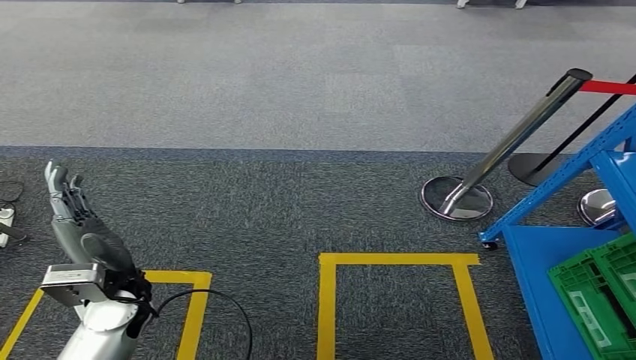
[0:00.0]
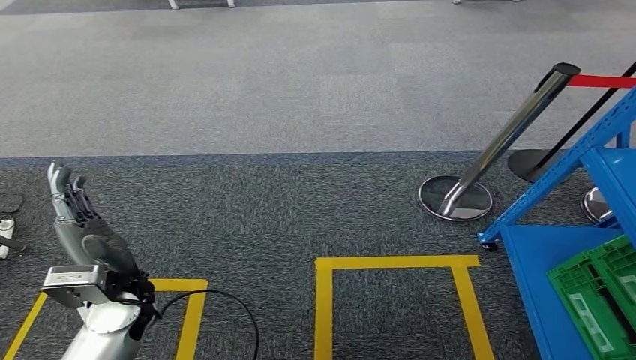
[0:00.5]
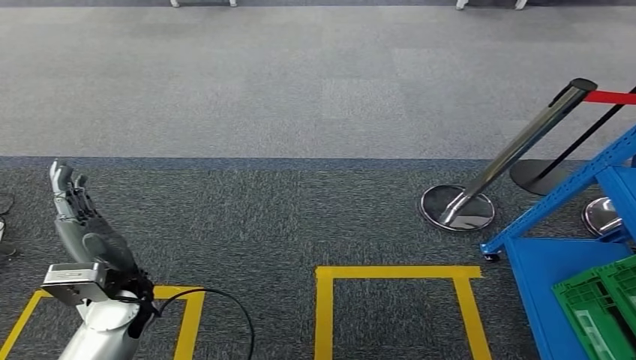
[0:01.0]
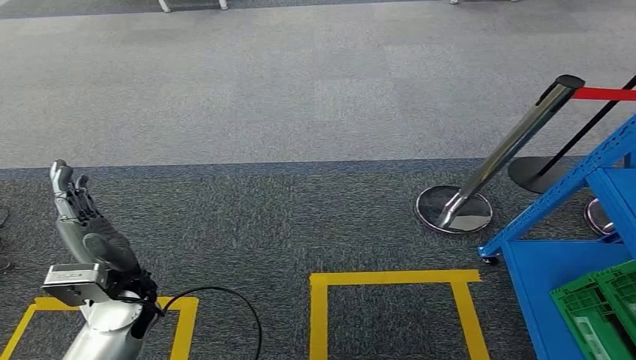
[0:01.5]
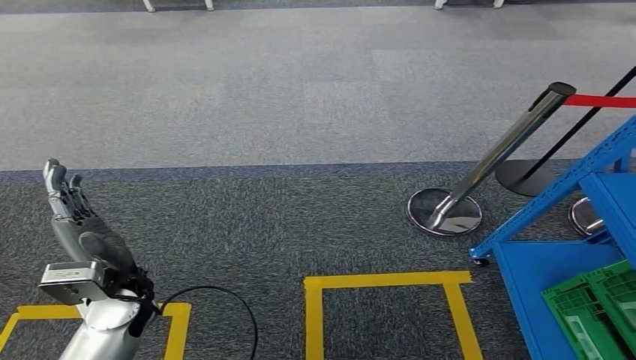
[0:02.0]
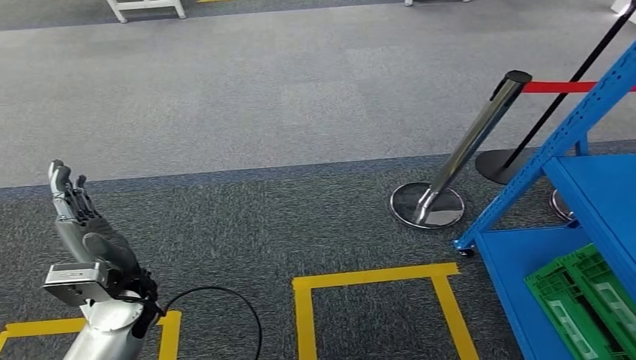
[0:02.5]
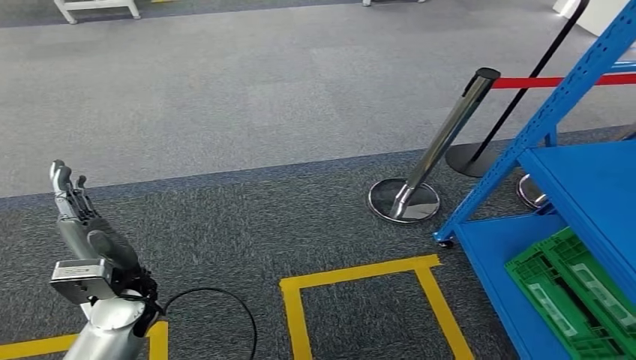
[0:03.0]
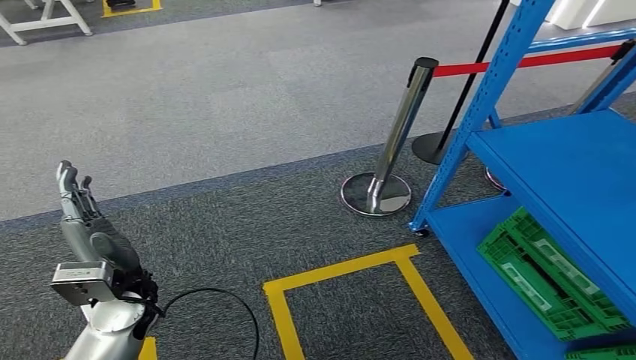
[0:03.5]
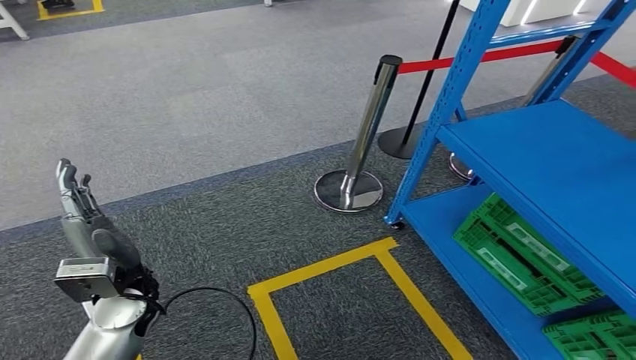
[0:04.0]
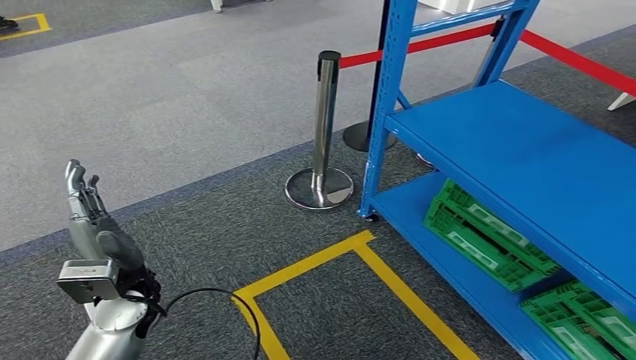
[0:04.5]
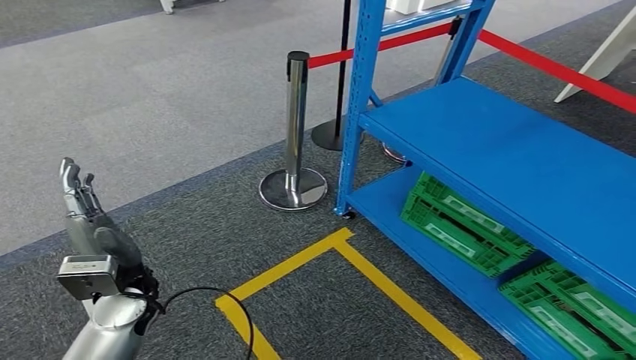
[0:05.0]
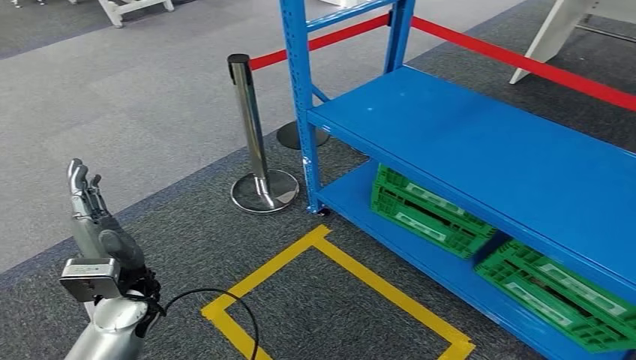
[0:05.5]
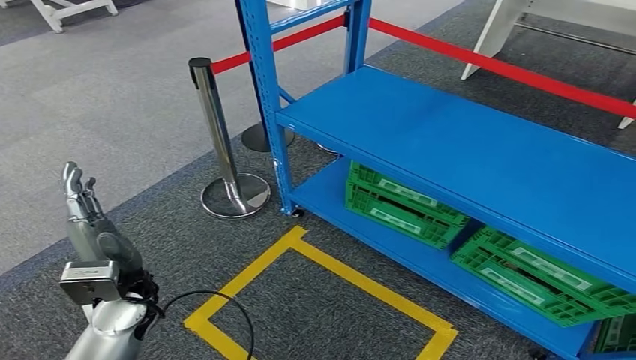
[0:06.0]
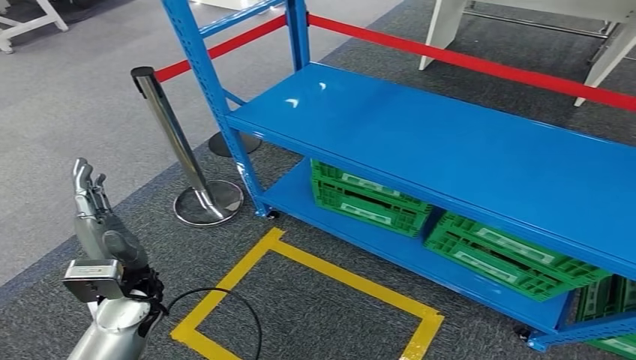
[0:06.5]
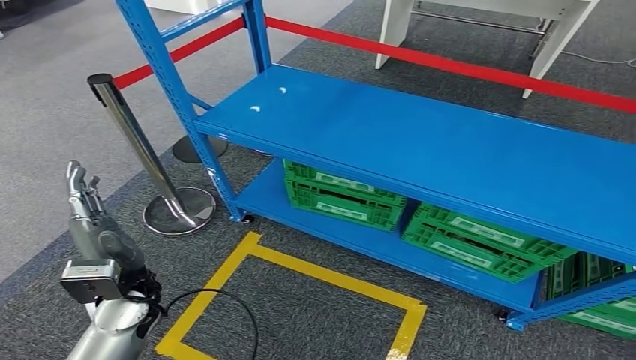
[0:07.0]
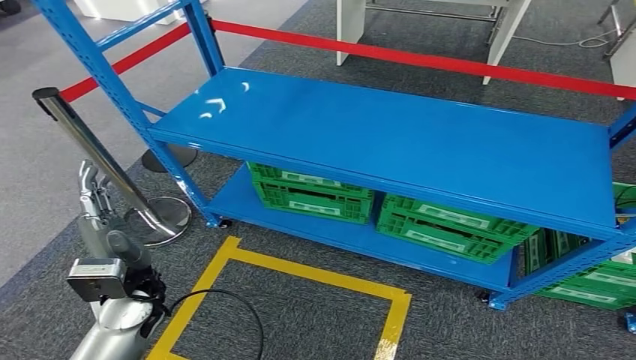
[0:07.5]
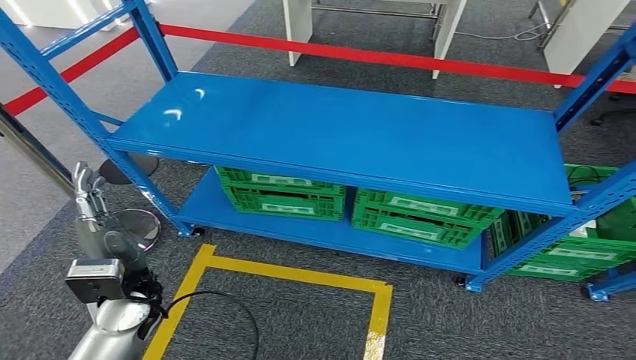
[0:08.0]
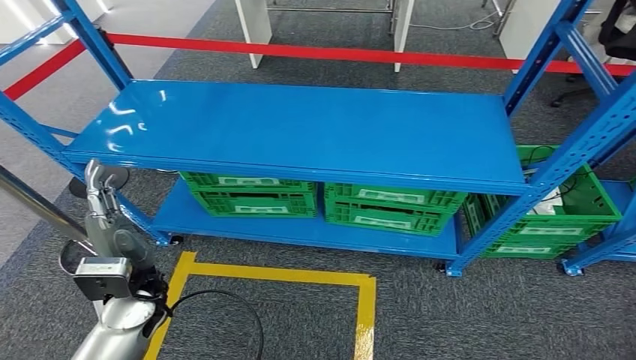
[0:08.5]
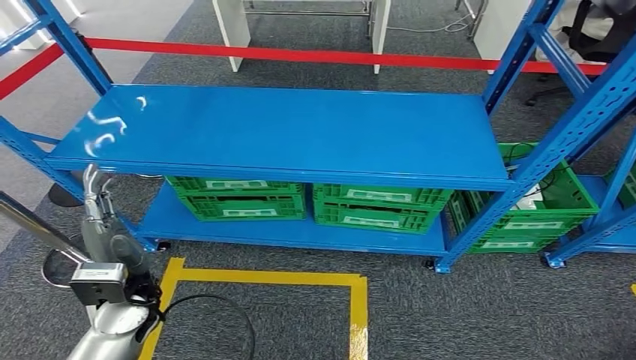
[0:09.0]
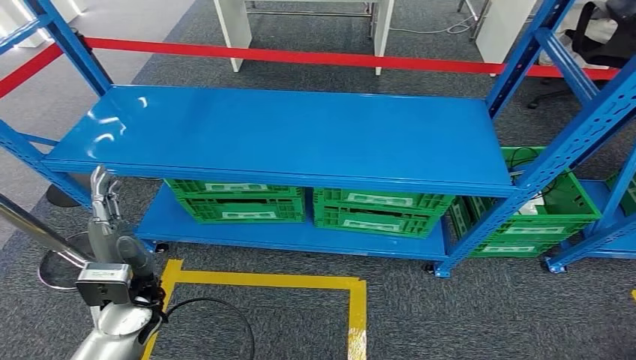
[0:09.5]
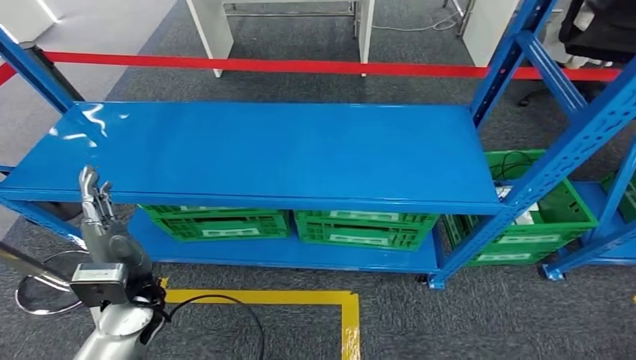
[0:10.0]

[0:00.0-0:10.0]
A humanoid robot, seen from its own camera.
Step, 0:00.0 to 0:08.0: Insert the small component into the corresponding slot on the workbench.

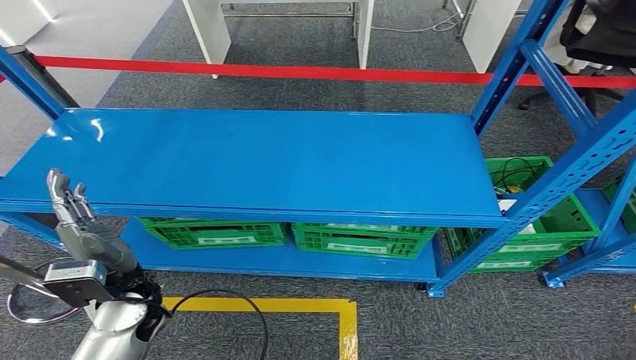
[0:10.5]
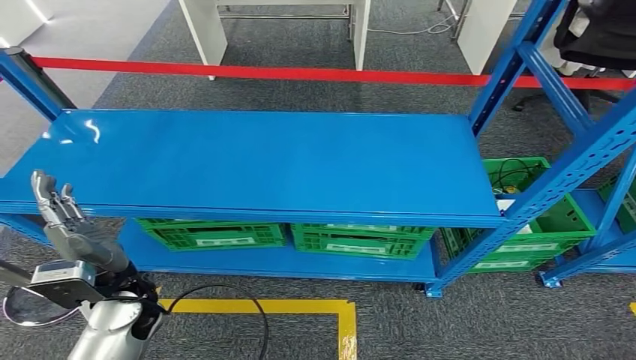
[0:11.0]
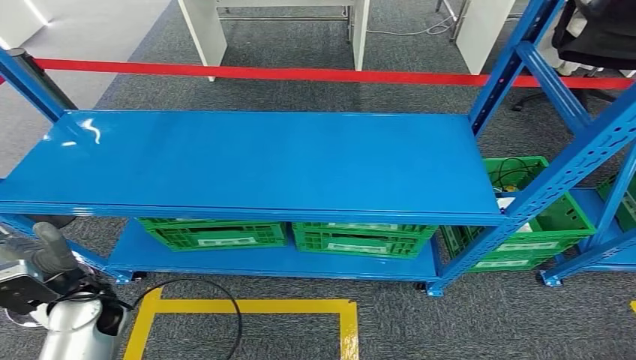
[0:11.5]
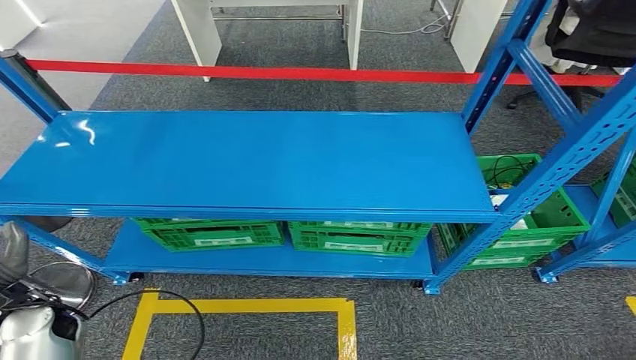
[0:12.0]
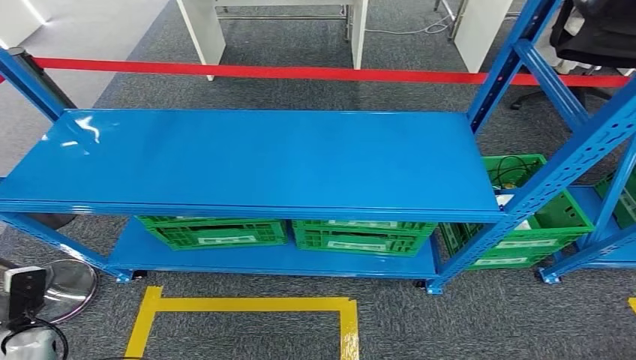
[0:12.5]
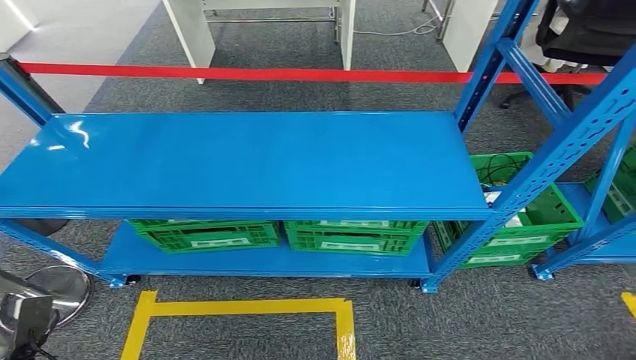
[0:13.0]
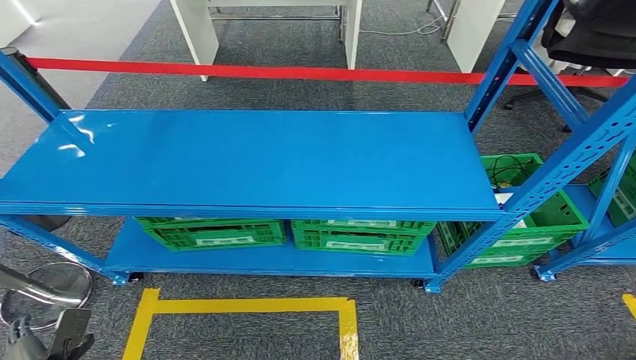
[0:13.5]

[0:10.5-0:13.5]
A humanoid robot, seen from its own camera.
Step, 0:10.5 to 0:13.5: Move to the initial position of the workbench.
0:12.0 to 0:13.5: The left hand shifts about 20 cm downward and backward.
